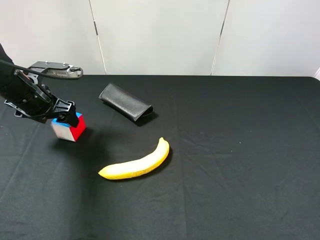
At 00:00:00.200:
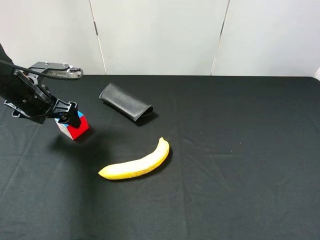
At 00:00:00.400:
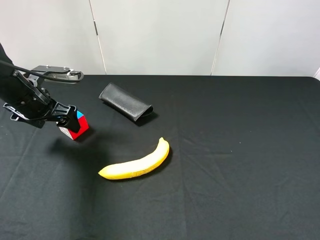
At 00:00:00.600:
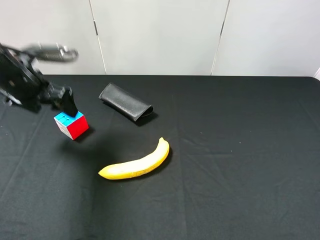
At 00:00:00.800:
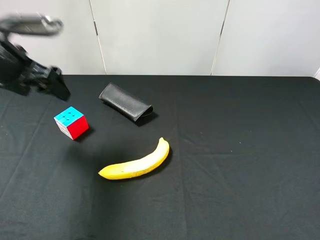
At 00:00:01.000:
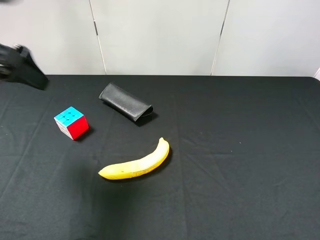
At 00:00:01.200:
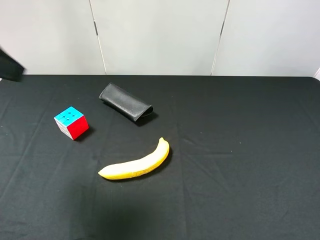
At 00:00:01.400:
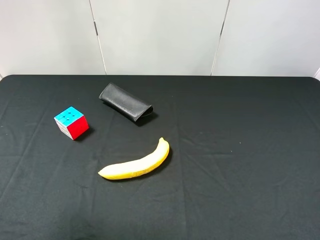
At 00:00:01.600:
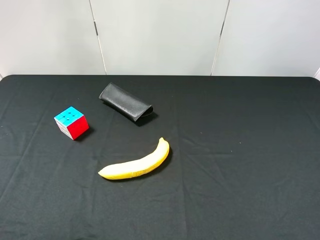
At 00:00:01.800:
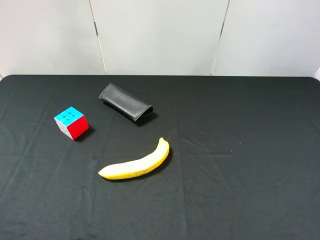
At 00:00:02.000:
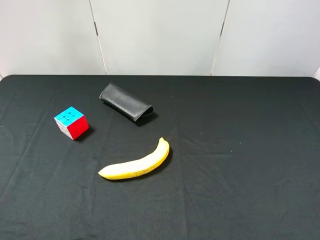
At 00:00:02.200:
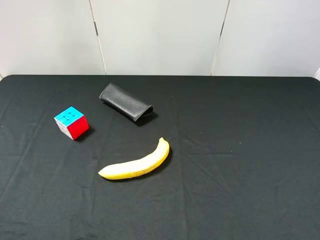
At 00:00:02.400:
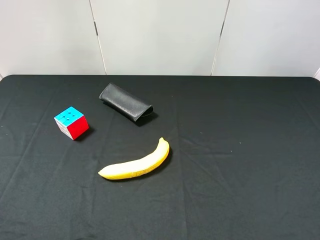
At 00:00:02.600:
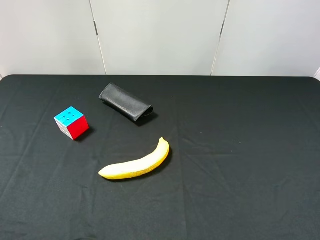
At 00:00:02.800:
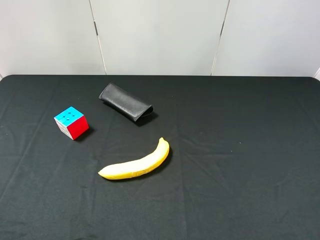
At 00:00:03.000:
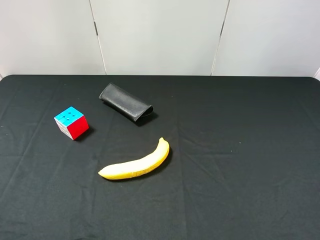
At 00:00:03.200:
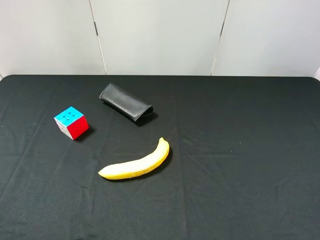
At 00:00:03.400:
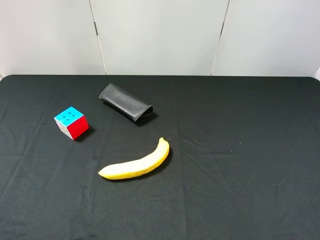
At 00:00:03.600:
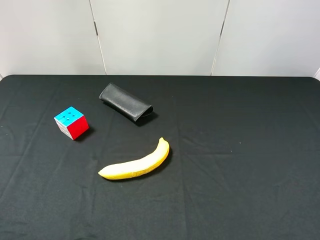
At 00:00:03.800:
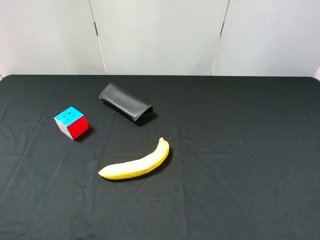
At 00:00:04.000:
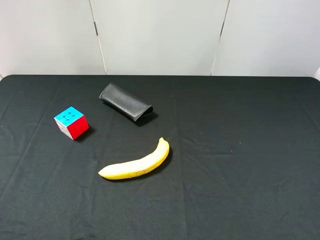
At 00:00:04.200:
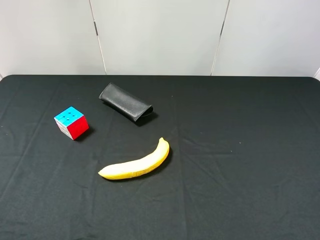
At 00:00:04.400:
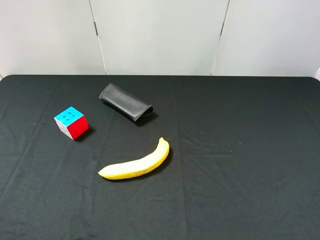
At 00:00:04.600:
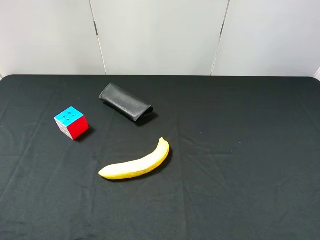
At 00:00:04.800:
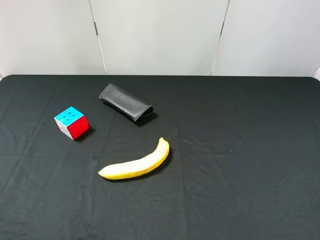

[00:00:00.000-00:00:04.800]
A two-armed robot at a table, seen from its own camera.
Task of the whole recording: use the right gripper to pick up the item and transfer it from the right gripper to the left gripper.
00:00:00.000 to 00:00:01.600: The left gripper moves backward and upward, roughly 35 cm.
